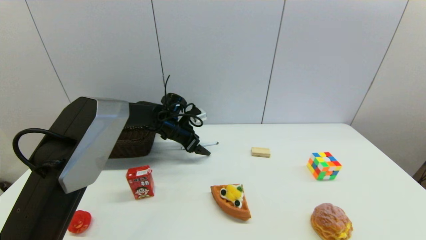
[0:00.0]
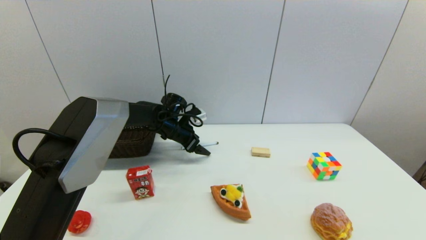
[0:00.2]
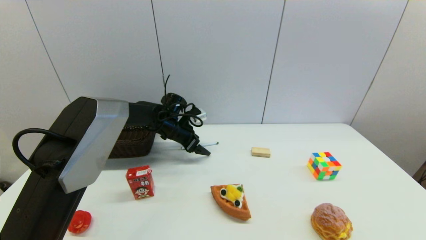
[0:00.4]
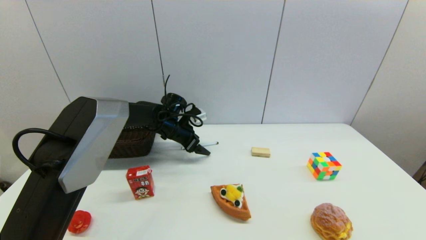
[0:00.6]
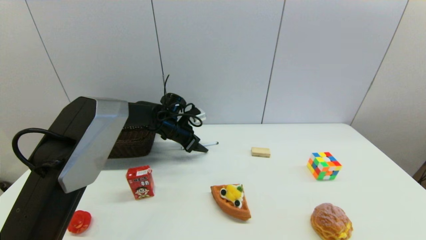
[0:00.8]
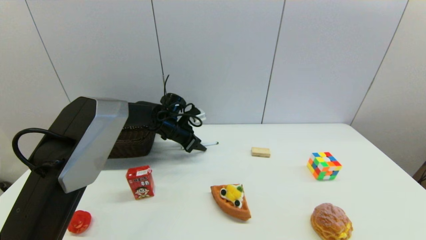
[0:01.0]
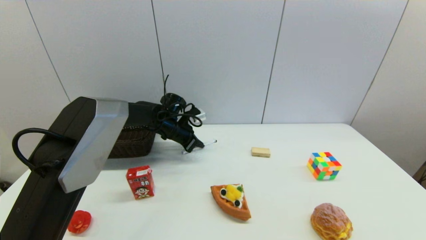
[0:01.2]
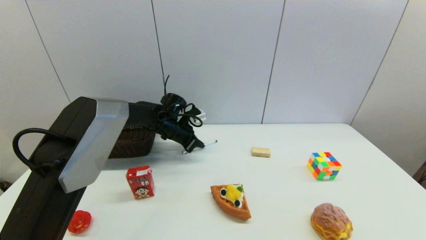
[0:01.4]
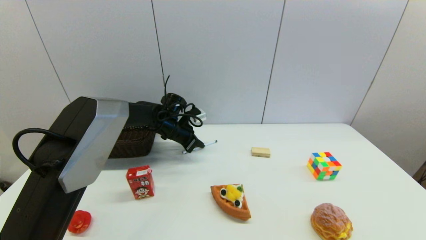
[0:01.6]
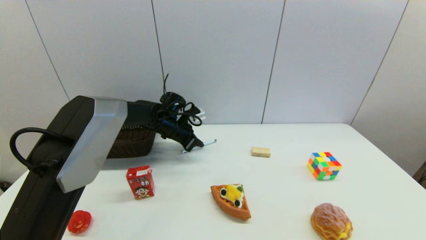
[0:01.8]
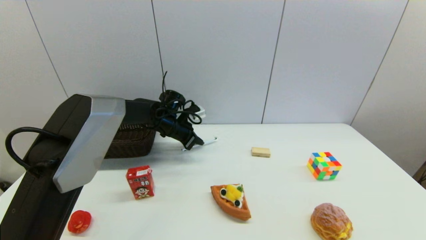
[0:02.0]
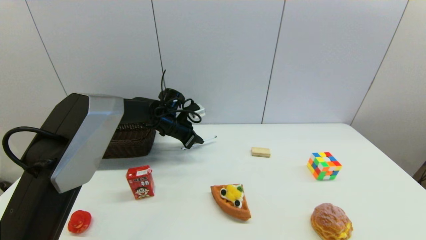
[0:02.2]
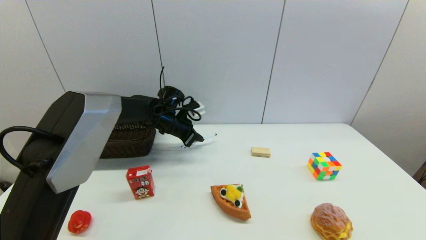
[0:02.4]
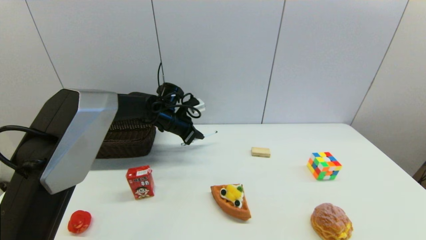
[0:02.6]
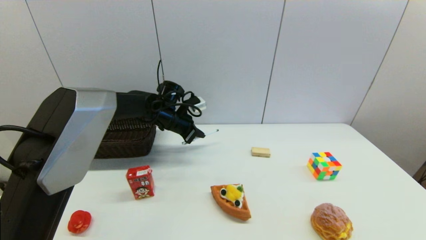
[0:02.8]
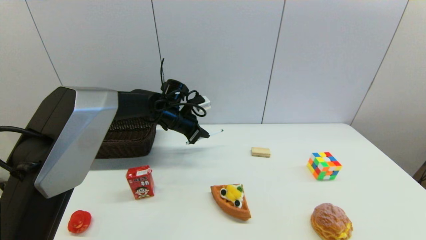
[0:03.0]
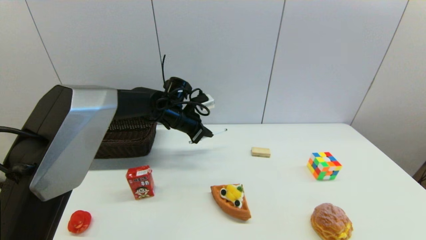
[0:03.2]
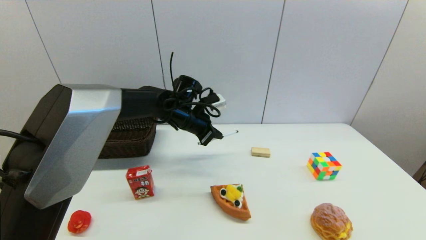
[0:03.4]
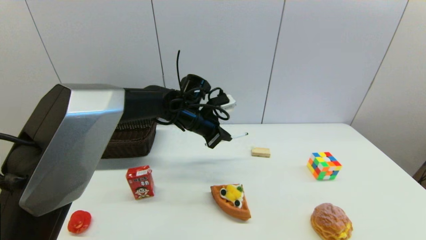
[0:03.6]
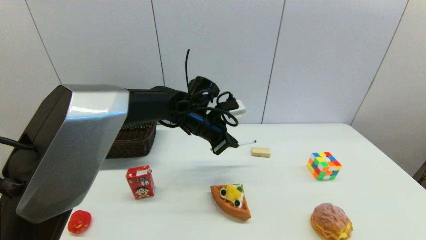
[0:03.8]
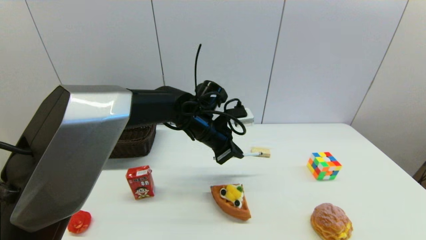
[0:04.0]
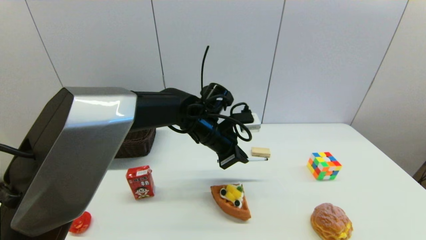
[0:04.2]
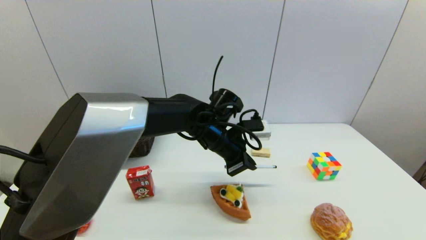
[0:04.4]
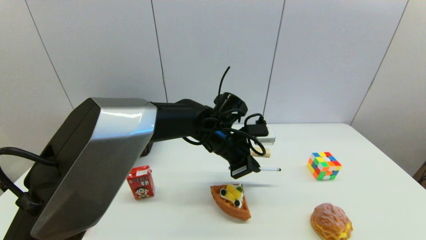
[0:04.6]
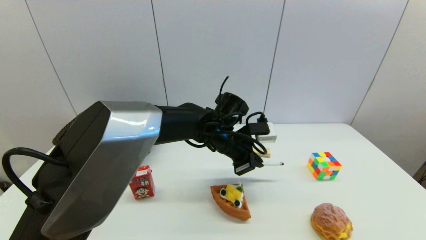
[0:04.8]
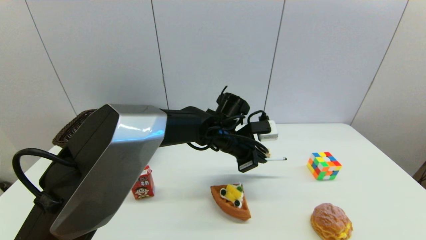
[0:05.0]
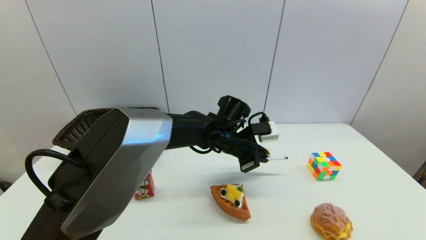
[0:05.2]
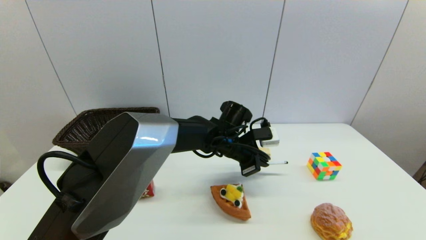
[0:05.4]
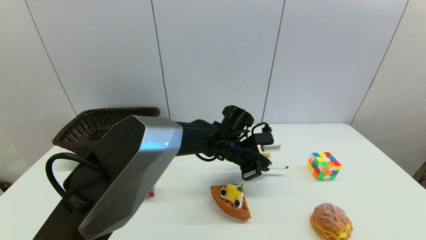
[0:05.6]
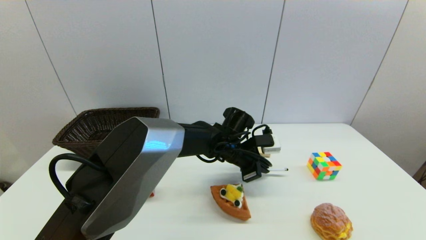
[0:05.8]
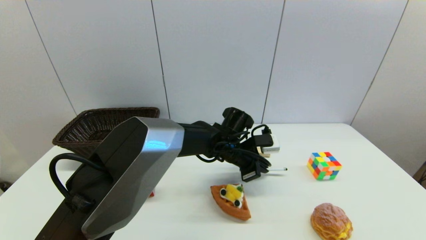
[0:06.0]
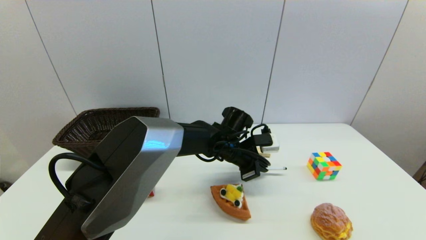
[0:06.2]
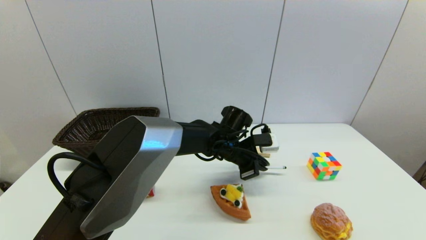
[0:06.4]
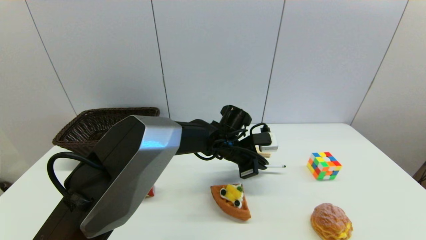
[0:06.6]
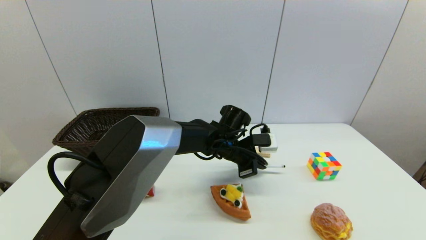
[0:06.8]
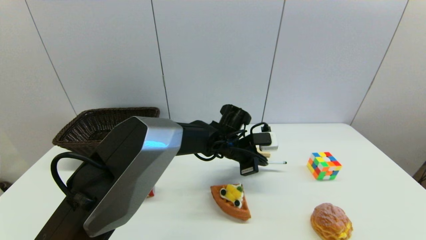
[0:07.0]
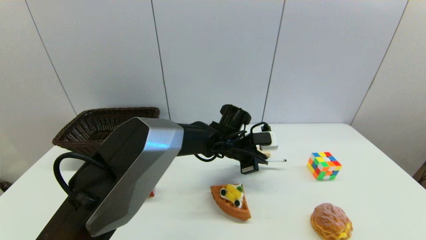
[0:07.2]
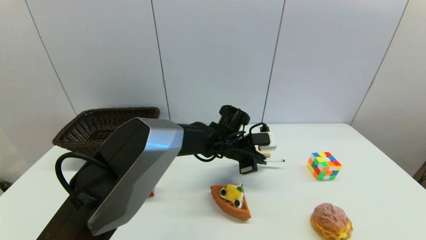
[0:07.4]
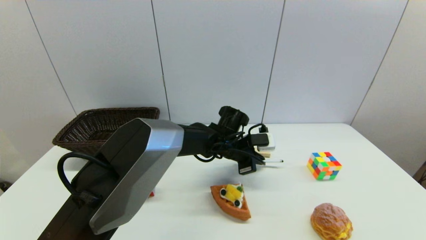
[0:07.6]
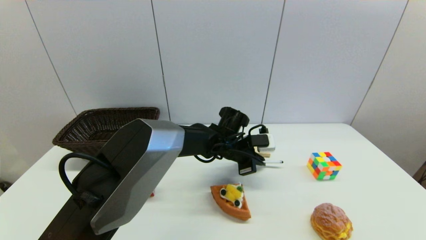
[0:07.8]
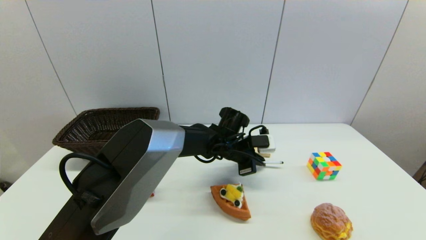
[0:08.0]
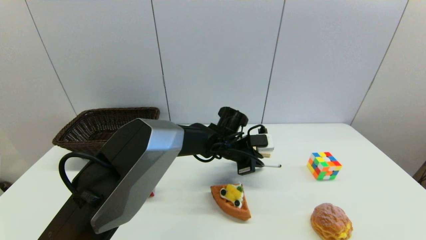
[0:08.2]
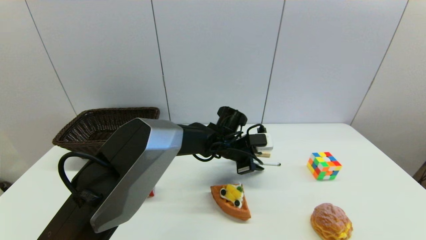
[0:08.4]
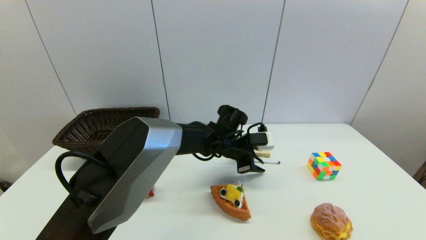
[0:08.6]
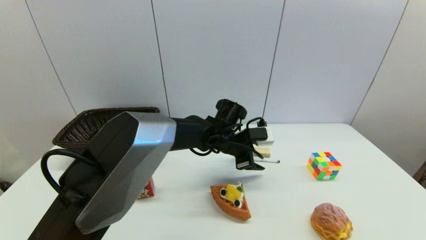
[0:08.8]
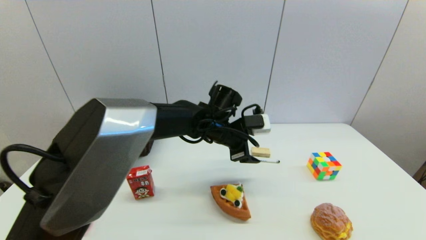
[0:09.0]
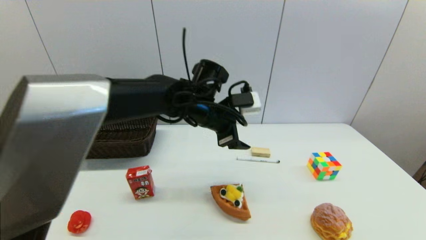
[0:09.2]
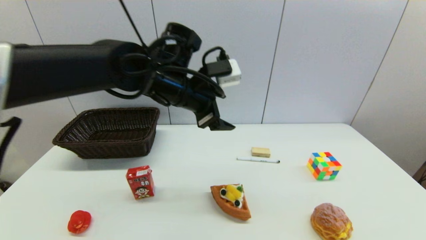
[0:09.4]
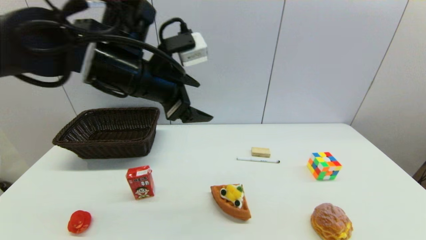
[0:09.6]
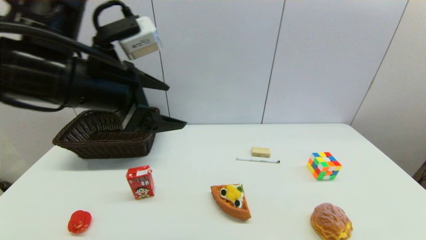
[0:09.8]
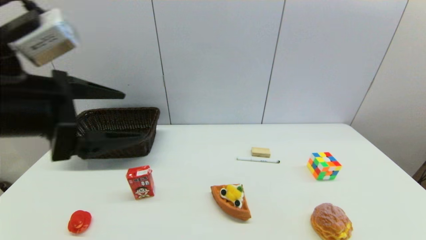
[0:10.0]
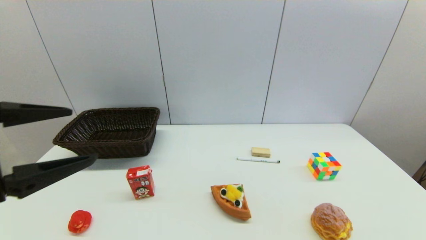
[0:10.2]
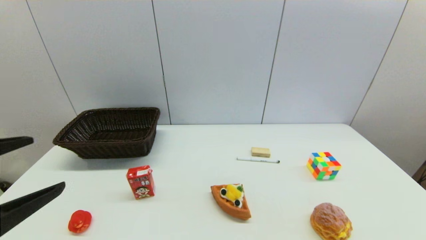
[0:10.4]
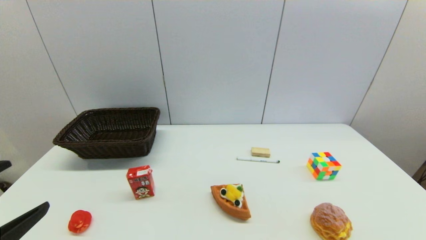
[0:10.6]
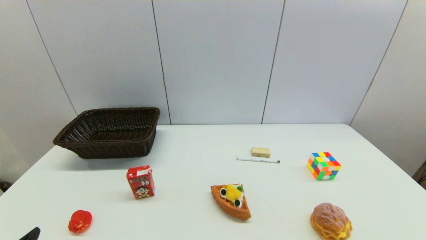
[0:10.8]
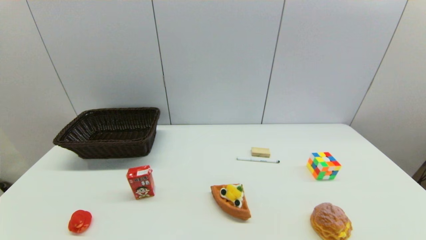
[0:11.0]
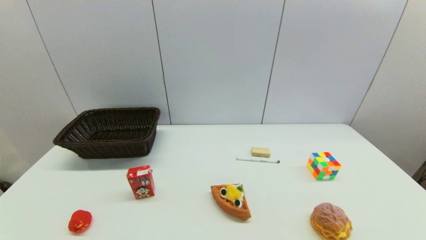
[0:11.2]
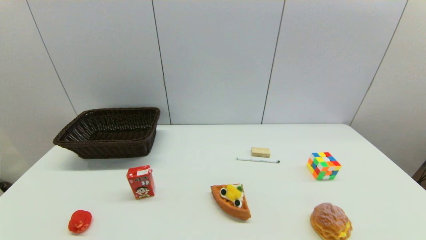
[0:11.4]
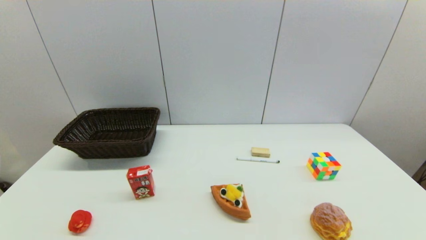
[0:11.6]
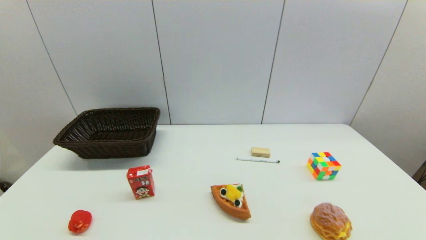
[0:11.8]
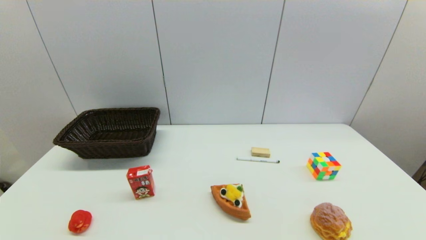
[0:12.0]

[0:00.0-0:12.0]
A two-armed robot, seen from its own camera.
Task of the whole recording: put the pen in the designated position.
Step, 0:01.6 to 0:08.6: Place the sign pen on the table with left gripper.
0:01.6 to 0:03.0: The left gripper moves about 5 cm.
0:03.0 to 0:04.4: The left gripper moves to the right and backward, about 15 cm.
0:04.4 to 0:06.0: The left gripper heads downward, covering some 5 cm.
0:06.0 to 0:07.6: The grippers move only a little.
0:07.6 to 0:09.0: The left gripper moves upward, roughly 5 cm, and opens up.
0:09.0 to 0:10.4: The left gripper goes roughly 40 cm backward and to the left.
0:10.4 to 0:12.0: The left gripper travels downward and backward by roughly 20 cm.

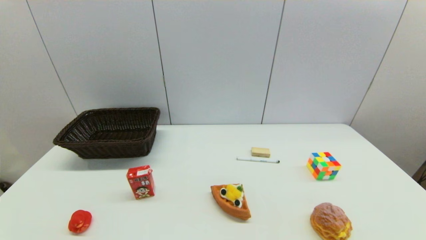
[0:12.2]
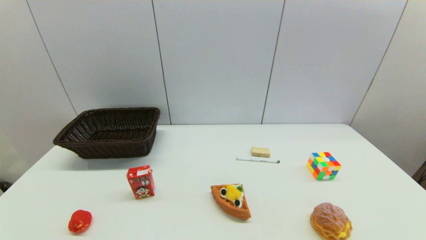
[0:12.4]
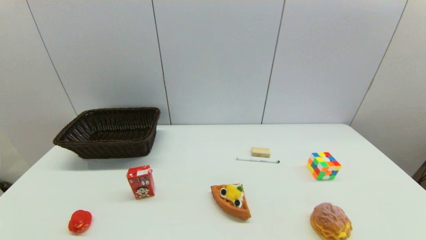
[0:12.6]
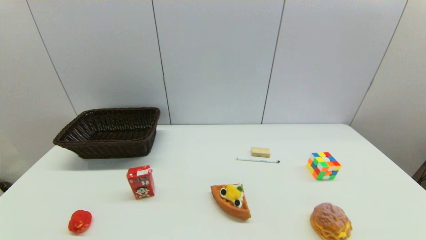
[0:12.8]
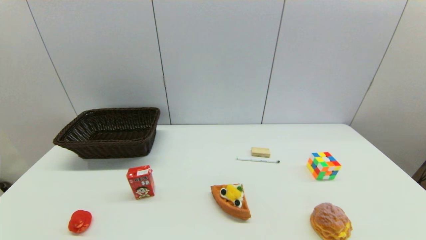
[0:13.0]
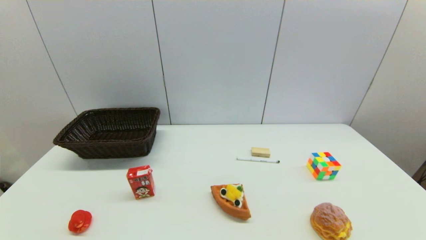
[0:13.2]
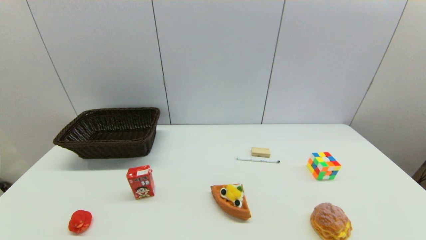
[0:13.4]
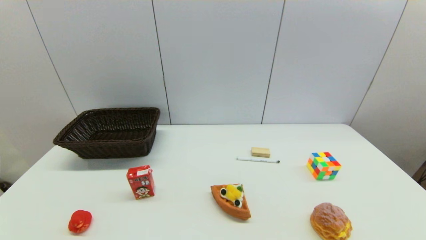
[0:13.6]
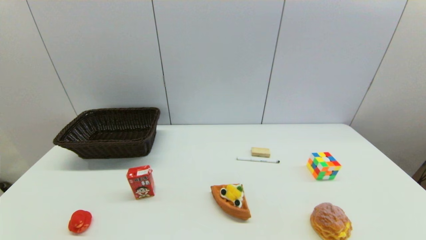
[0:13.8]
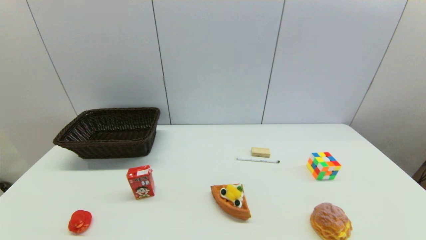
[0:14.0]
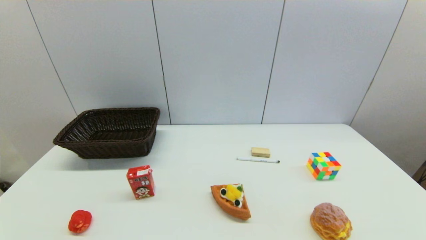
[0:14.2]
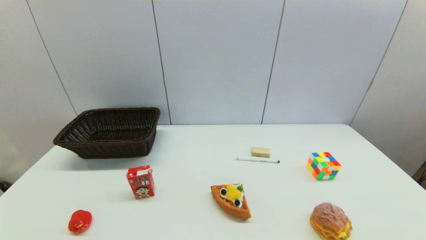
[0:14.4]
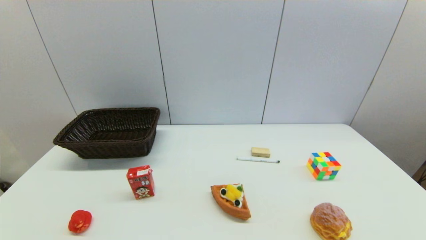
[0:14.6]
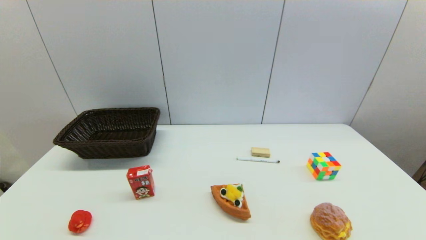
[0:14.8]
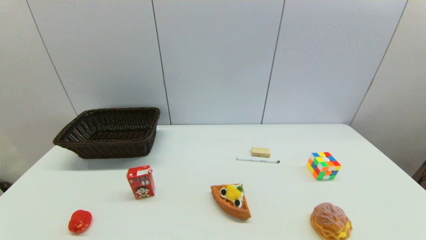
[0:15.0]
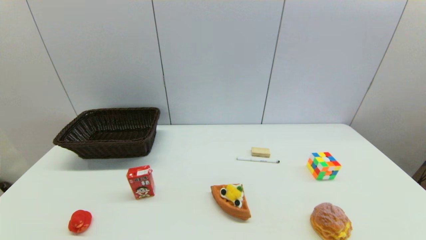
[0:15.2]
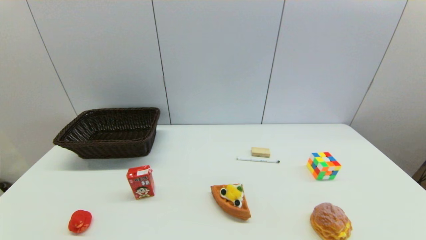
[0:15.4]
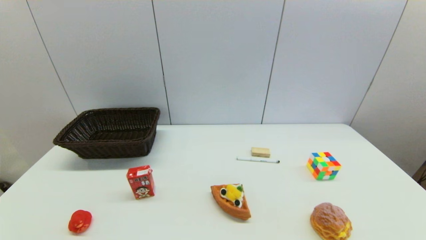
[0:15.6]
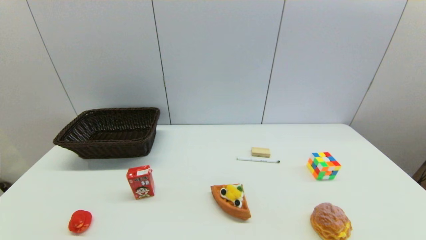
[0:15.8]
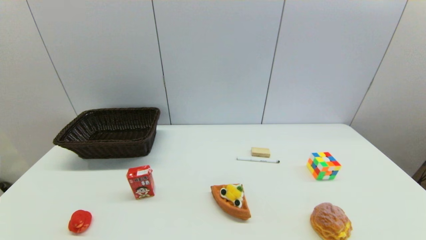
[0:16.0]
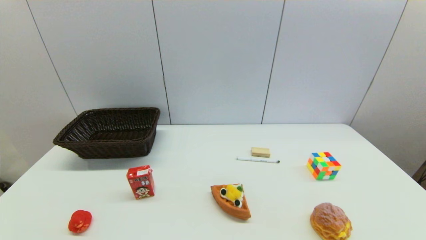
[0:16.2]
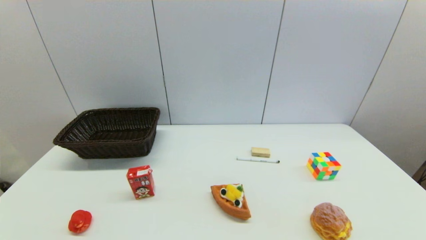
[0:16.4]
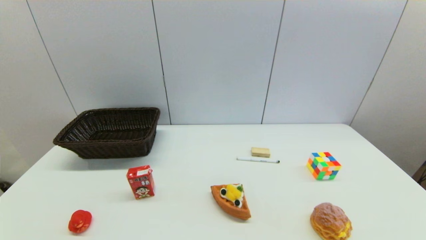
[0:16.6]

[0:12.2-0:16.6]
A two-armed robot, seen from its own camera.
Task of the whole recording: put the pen in the designated position.
0:12.2 to 0:16.6: The two grippers keep their place.
